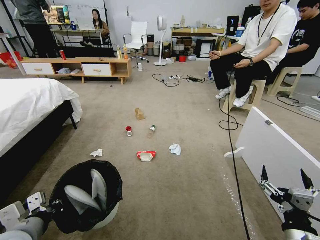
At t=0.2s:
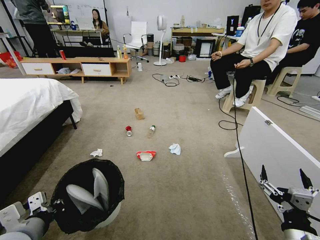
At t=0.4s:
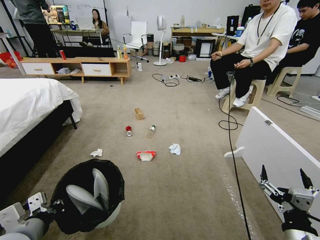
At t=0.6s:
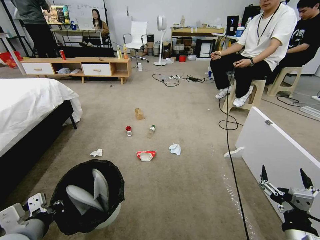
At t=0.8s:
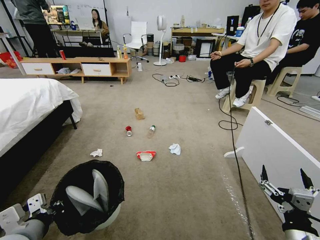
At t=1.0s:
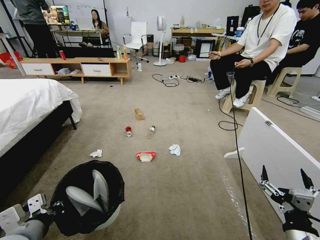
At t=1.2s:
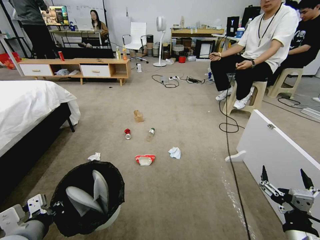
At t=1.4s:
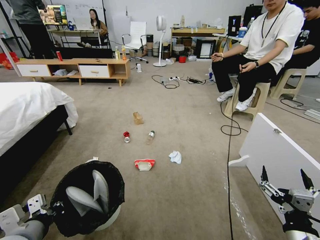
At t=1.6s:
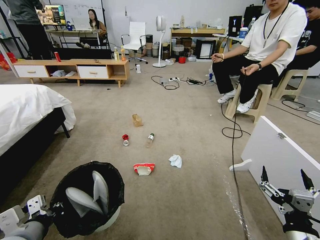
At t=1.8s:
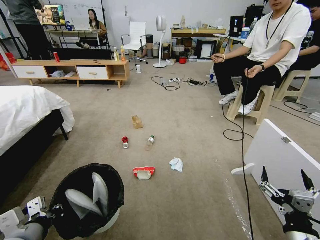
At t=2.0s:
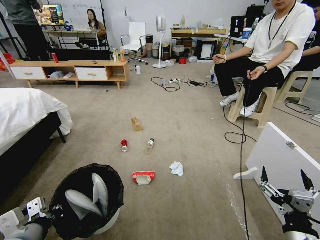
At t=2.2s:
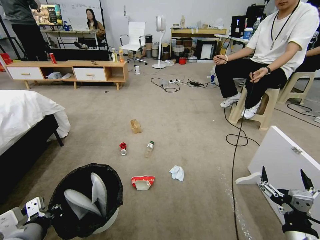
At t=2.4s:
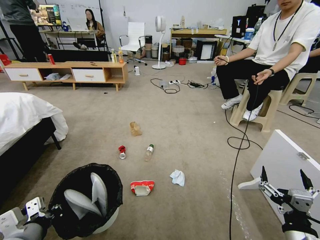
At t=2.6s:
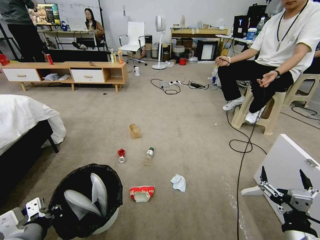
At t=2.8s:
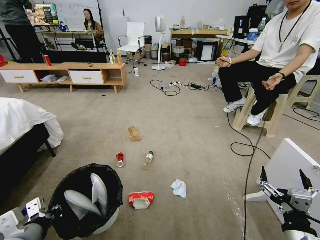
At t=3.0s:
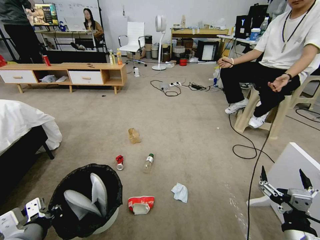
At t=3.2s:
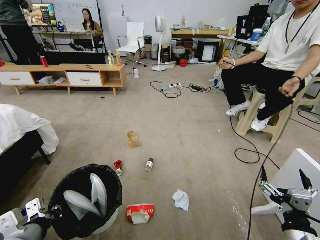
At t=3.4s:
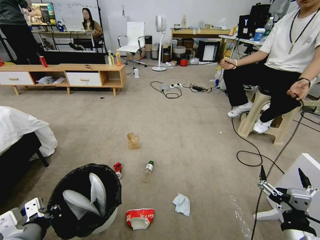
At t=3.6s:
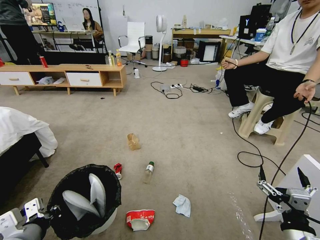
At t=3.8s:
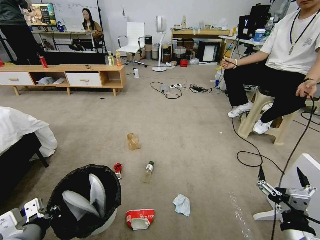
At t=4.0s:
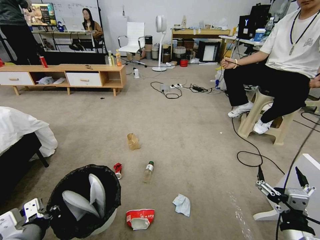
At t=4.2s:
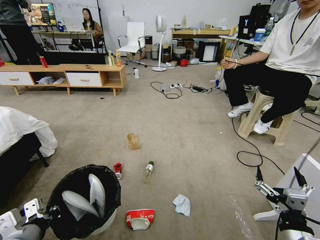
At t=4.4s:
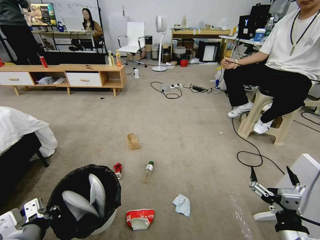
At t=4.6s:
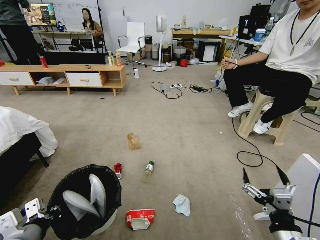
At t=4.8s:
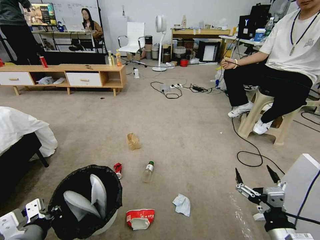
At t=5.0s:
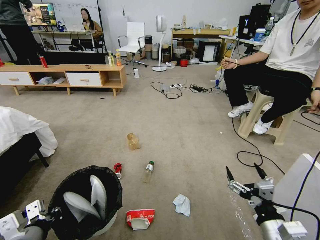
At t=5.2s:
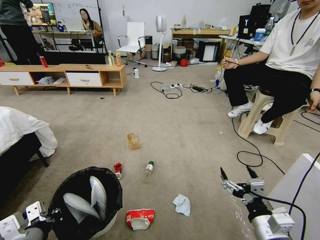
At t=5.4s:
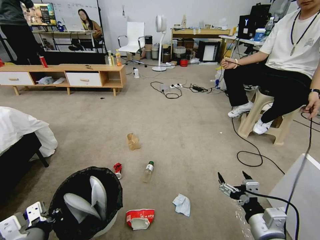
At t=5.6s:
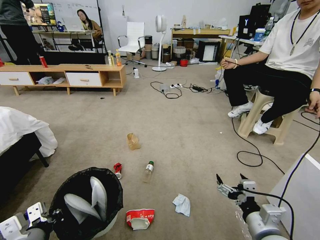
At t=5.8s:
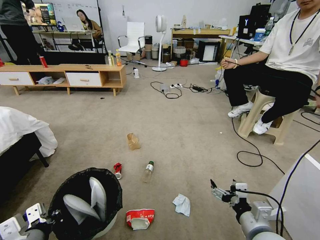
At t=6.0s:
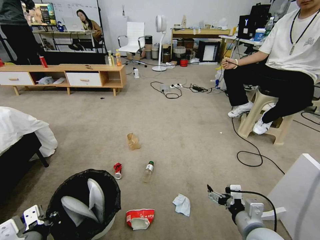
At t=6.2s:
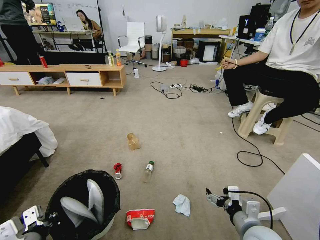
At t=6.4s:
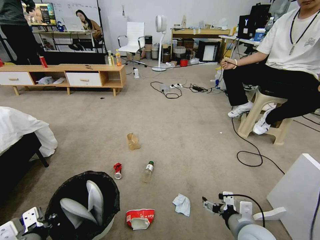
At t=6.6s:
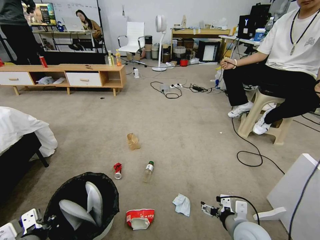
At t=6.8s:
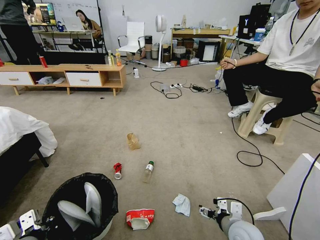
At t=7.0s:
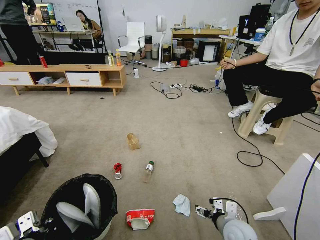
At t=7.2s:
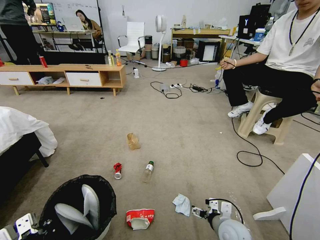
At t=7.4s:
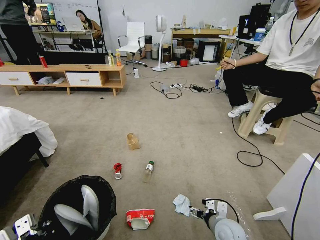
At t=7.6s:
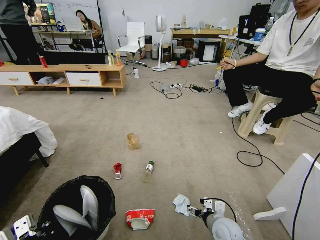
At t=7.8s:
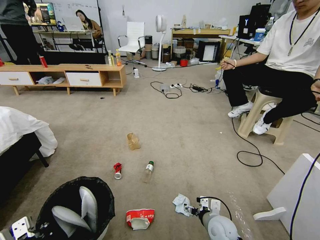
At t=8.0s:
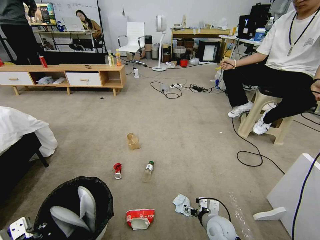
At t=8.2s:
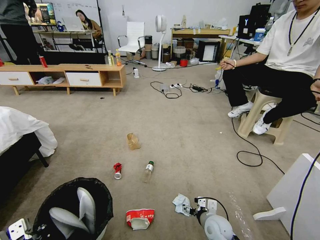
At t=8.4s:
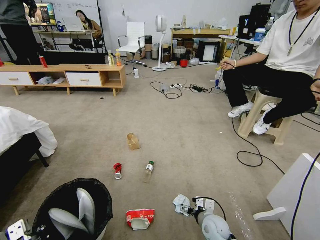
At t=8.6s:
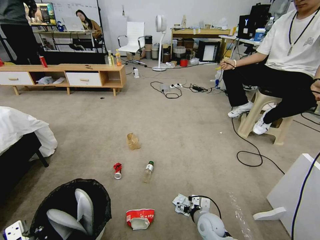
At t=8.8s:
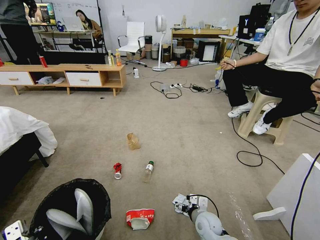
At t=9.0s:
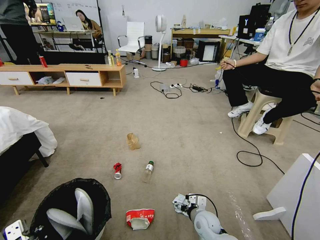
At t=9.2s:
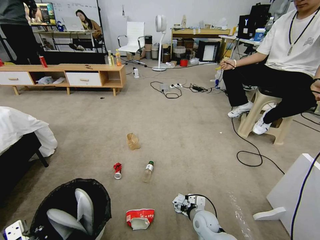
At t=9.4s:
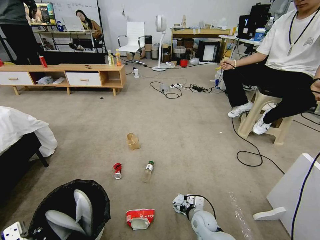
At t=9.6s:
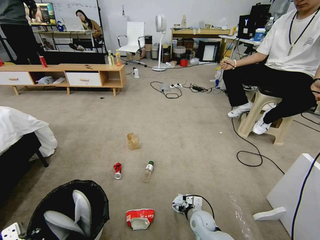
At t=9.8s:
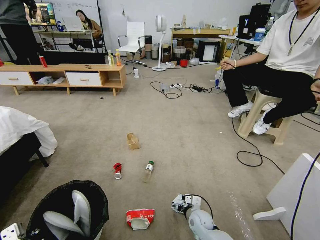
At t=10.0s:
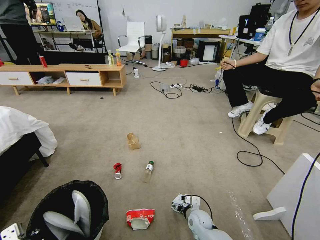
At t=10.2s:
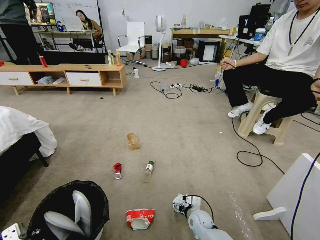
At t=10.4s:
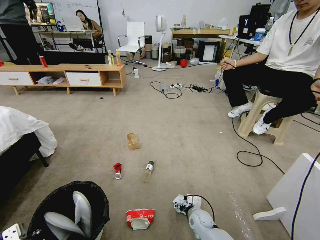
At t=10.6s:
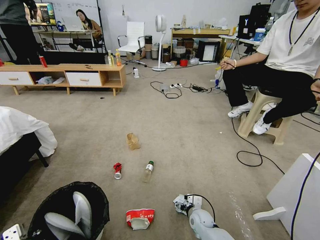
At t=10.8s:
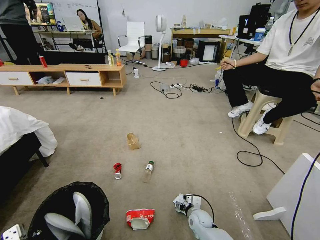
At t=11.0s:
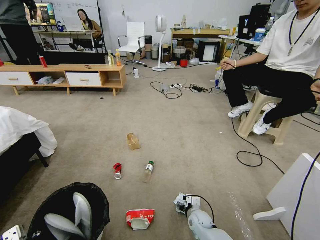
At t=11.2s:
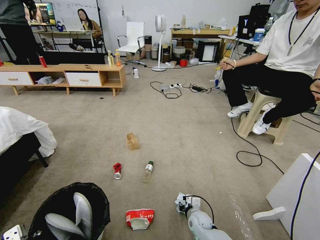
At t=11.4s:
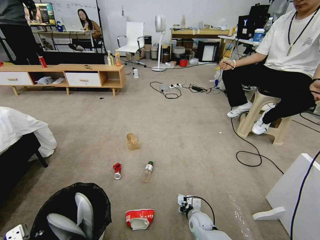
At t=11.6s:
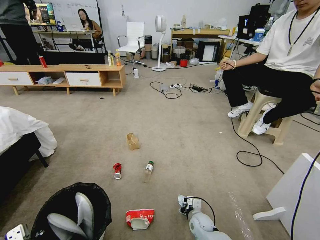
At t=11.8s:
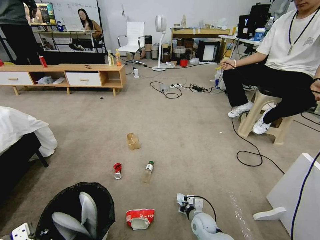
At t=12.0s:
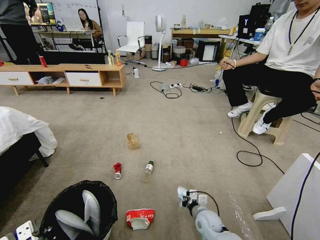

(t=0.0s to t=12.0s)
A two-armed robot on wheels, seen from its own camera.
Task of the whole recording: Pick up the trash bin and place the garbage on the floor into it.
t=4.4s - t=6.0s: The right gripper is displaced forward by roughly 5 cm.
t=6.0s - t=7.6s: The right gripper goes about 15 cm downward and forward.
t=7.6s - t=9.0s: The right gripper moves about 10 cm.
t=9.0s - t=10.4s: The right gripper heads downward, covering roughly 5 cm.
t=10.4s - t=12.0s: The right gripper closes up.

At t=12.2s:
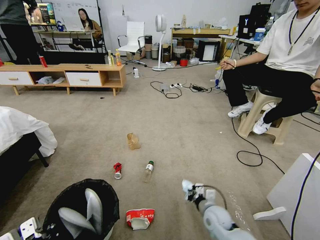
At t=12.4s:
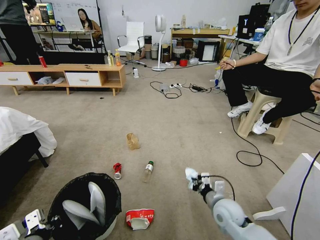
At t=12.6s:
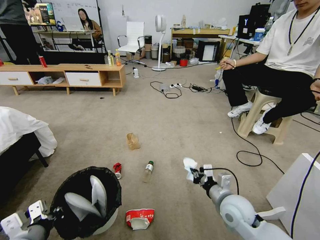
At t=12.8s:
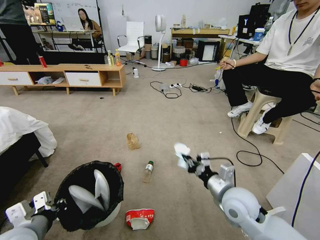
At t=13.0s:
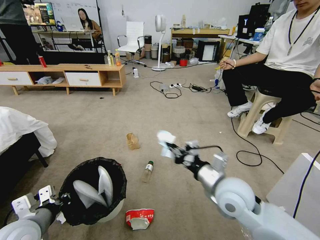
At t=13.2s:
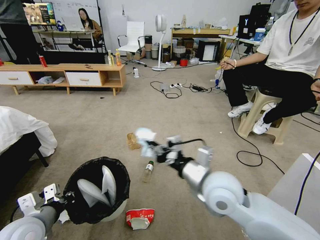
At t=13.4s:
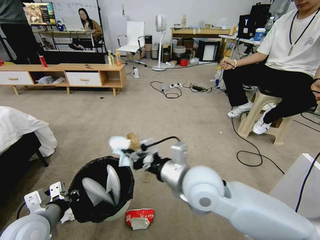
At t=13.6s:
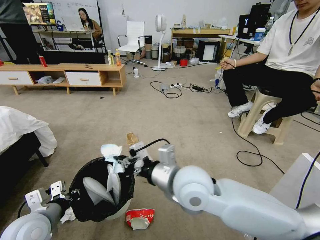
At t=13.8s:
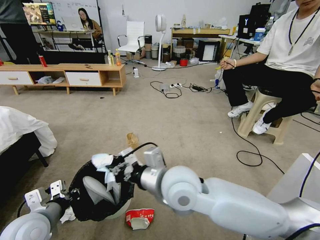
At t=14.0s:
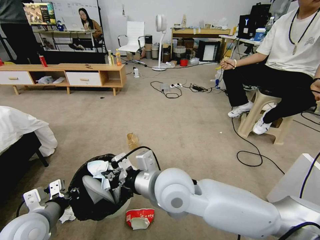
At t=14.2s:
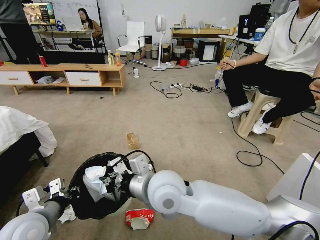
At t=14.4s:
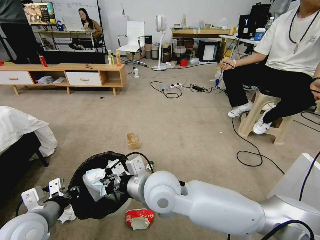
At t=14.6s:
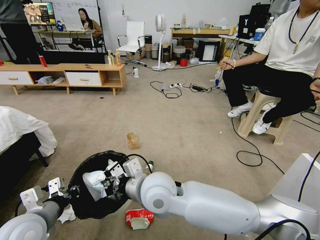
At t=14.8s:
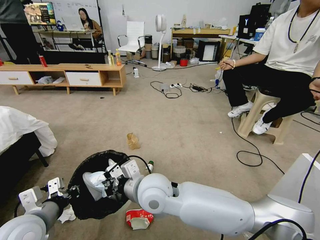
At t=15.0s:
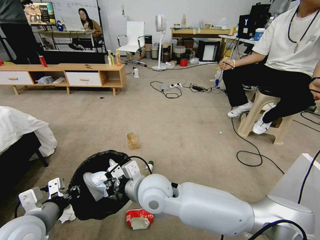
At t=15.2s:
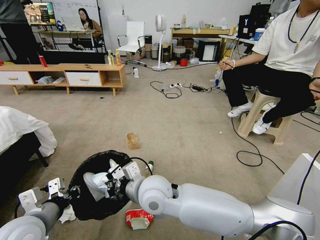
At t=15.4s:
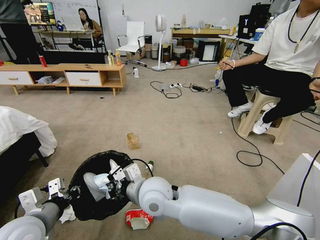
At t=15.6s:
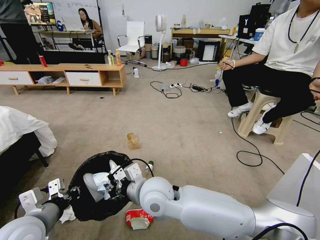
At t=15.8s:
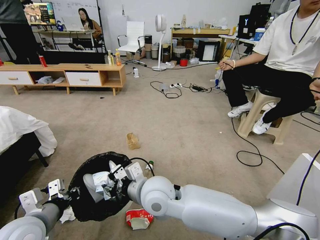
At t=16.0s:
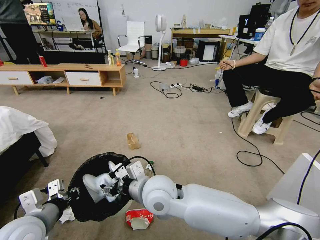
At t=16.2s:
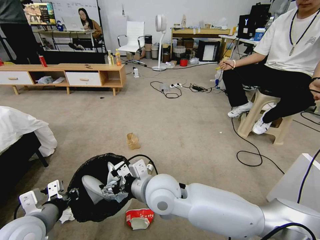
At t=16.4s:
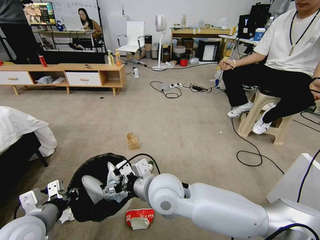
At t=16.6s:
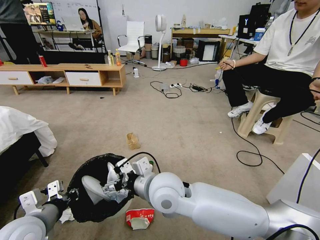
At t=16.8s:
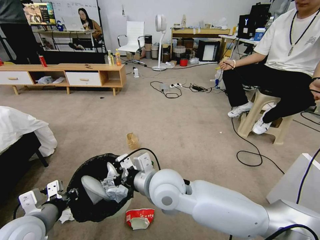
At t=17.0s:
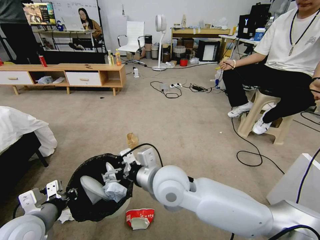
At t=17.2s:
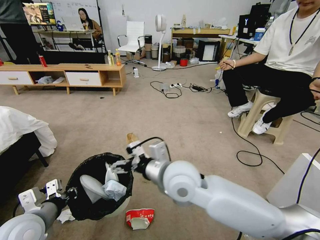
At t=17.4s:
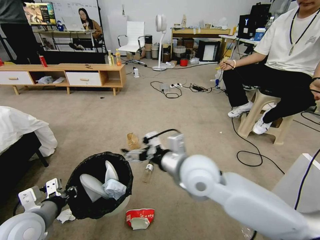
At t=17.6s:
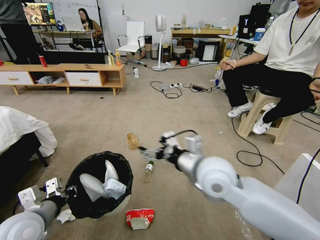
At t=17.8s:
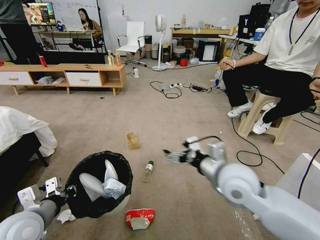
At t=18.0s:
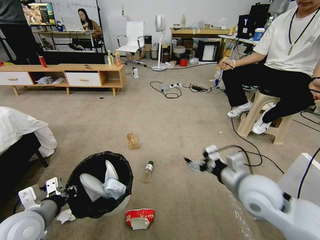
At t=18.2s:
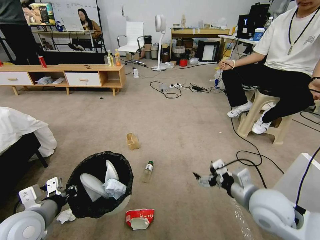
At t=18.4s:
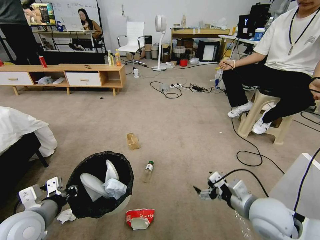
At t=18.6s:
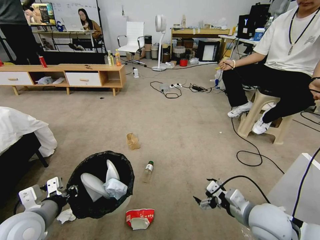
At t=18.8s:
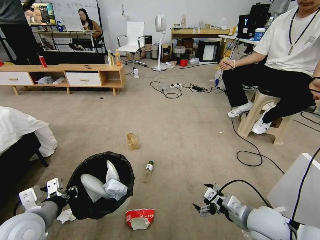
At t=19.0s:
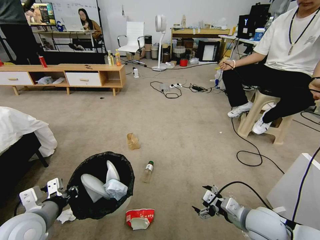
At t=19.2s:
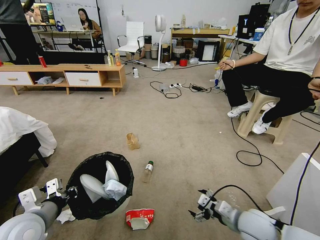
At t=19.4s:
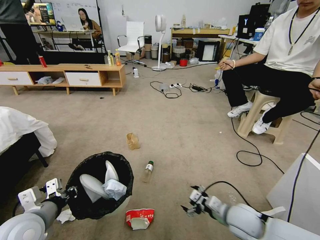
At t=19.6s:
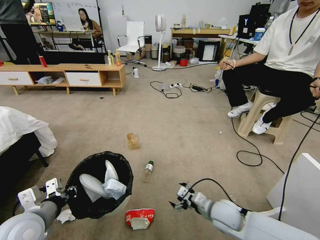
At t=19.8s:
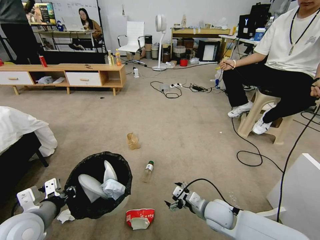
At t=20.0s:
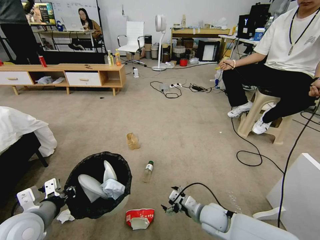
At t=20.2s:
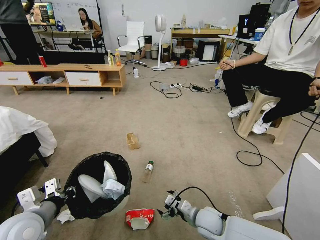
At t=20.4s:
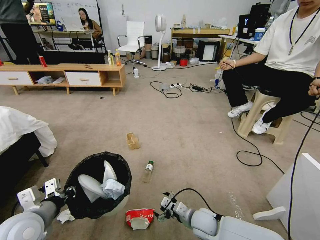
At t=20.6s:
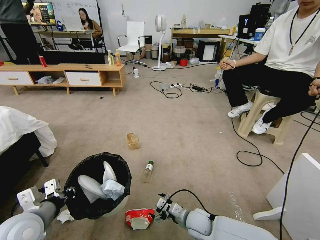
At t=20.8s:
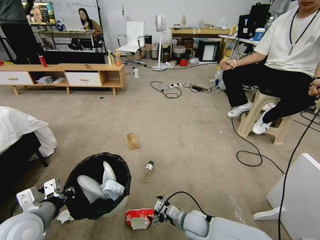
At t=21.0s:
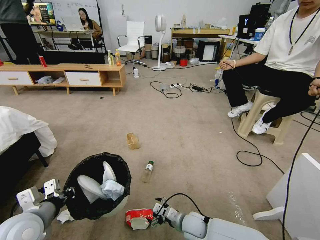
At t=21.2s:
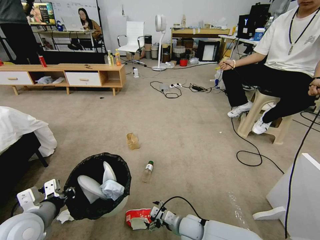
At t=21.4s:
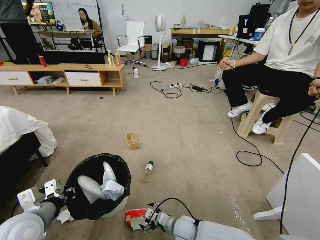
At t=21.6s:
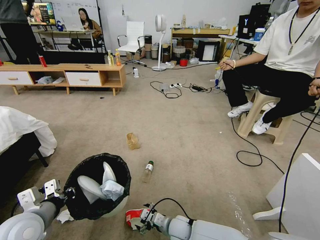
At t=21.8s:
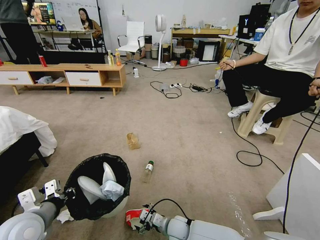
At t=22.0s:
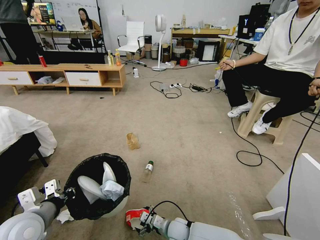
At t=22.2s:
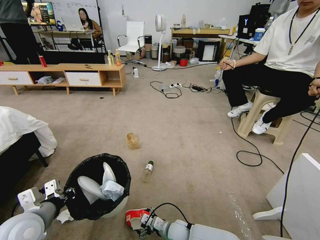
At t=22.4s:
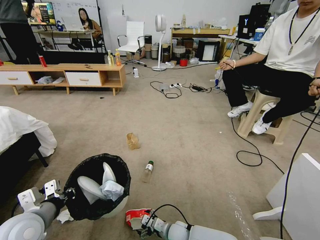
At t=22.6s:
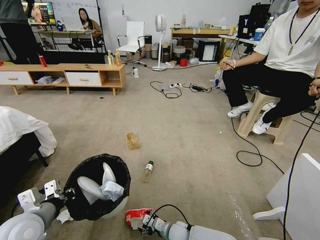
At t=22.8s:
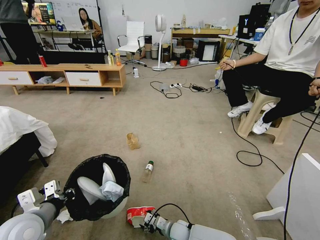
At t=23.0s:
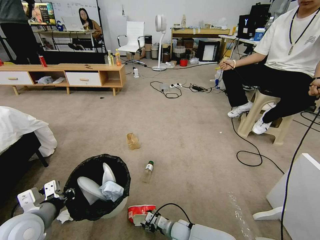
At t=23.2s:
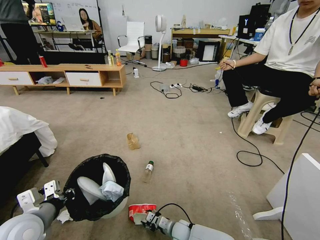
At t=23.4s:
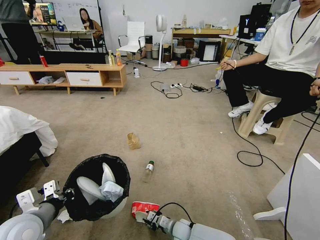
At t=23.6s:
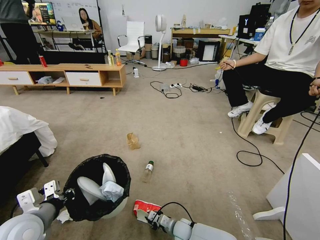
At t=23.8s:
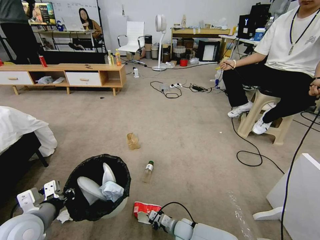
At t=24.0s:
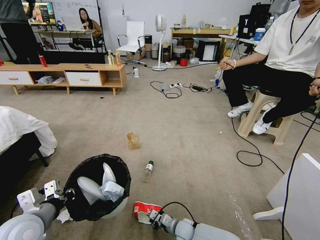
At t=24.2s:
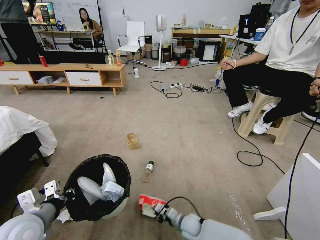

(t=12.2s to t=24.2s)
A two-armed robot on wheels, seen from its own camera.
Task of the whole recording: Pick up the trash bin and place the garbage on the floor into it.
t=12.2s - t=13.8s: The left gripper heads forward, covering some 10 cm, while the right gripper is displaced upward and to the left by about 35 cm.
t=13.8s - t=15.2s: The right gripper shifts about 10 cm to the left and downward.
t=15.2s - t=16.6s: The right gripper opens.
t=16.6s - t=18.2s: The right gripper travels to the right by roughly 25 cm.
t=18.2s - t=19.8s: The right gripper moves downward and to the left, about 20 cm.
t=19.8s - t=21.2s: The right gripper goes roughly 15 cm downward and to the left.
t=21.2s - t=22.6s: The right gripper heads downward, covering approximately 5 cm.
t=22.6s - t=24.2s: The right gripper is displaced to the right by roughly 5 cm, and closes.
